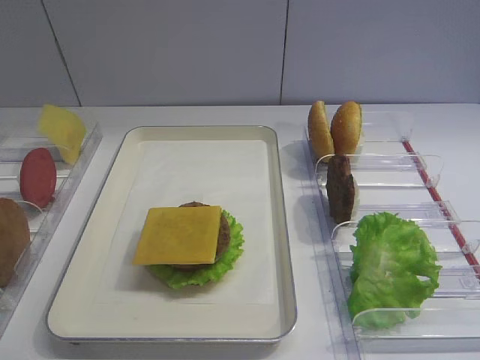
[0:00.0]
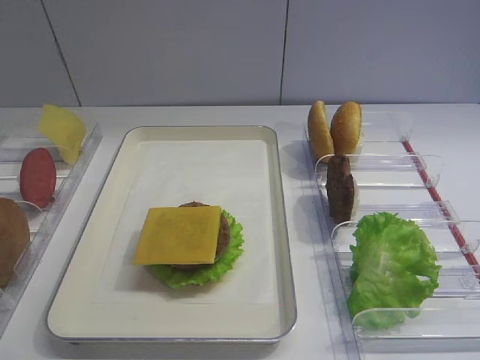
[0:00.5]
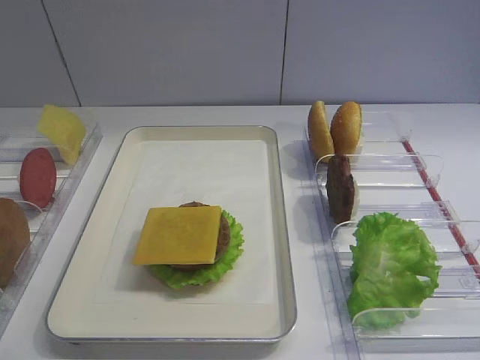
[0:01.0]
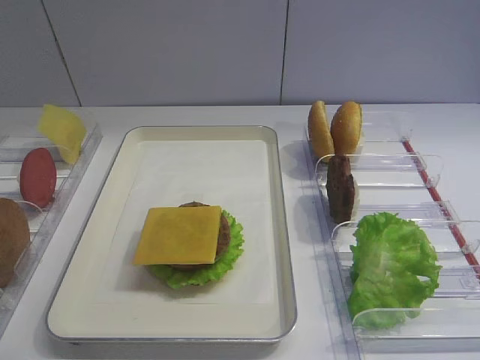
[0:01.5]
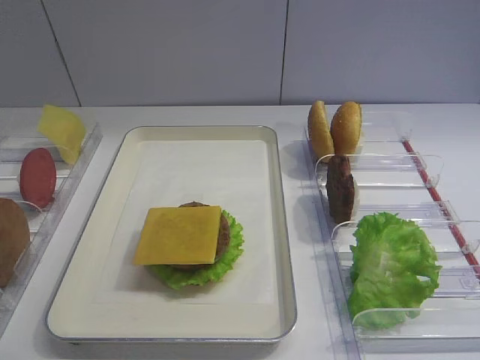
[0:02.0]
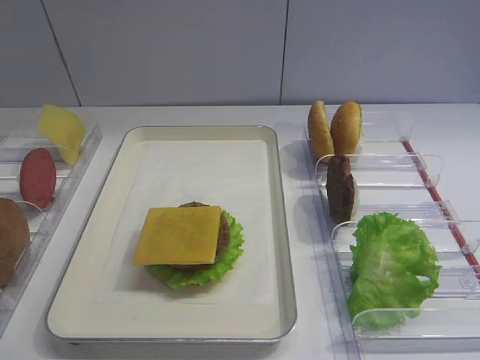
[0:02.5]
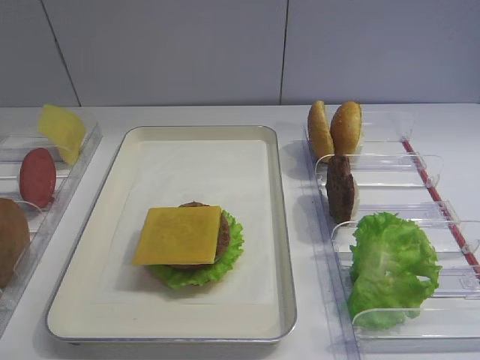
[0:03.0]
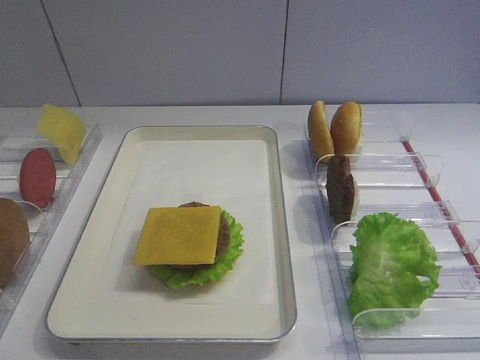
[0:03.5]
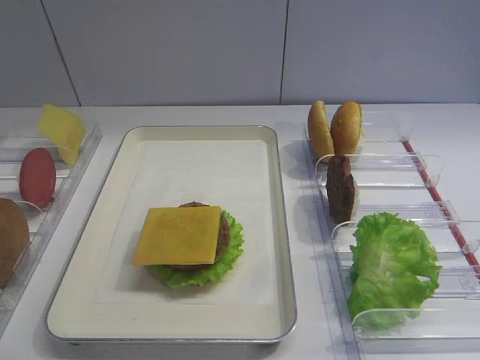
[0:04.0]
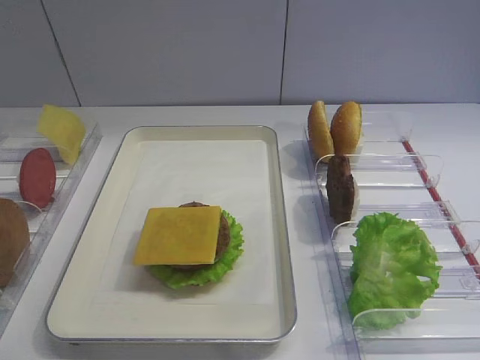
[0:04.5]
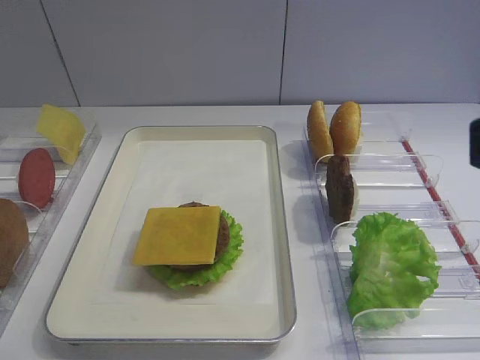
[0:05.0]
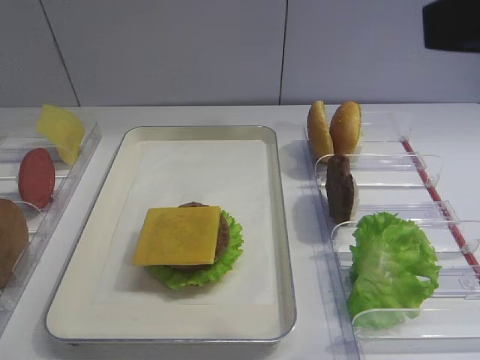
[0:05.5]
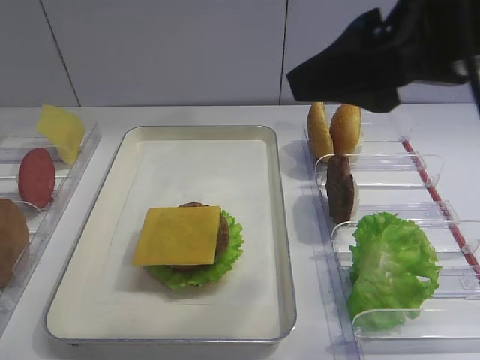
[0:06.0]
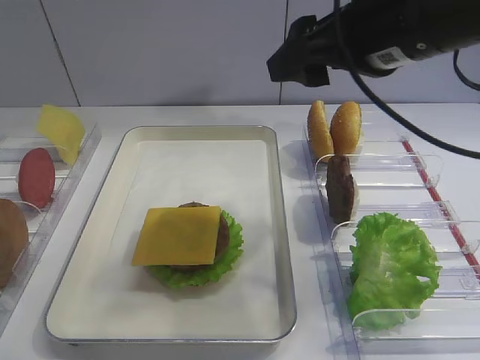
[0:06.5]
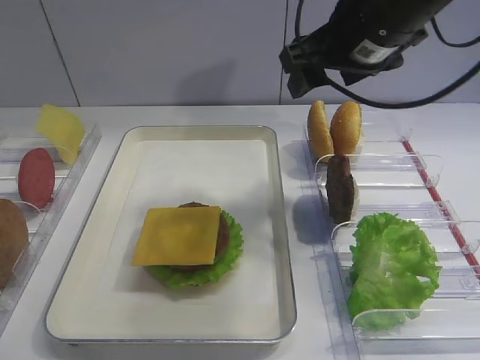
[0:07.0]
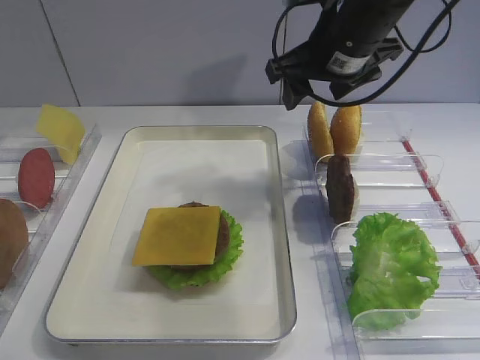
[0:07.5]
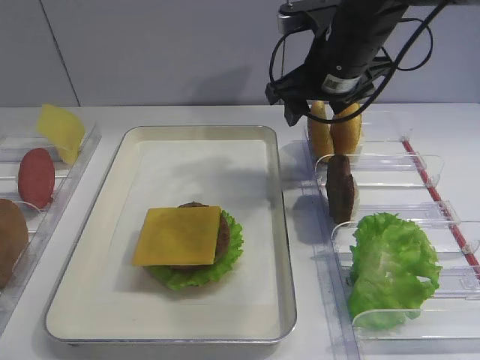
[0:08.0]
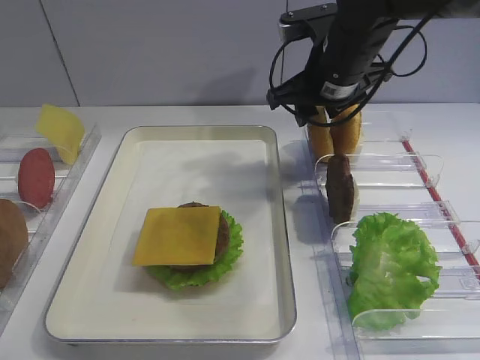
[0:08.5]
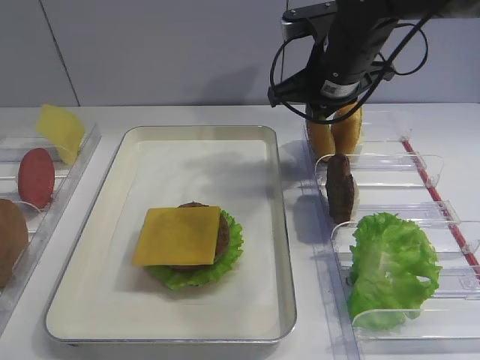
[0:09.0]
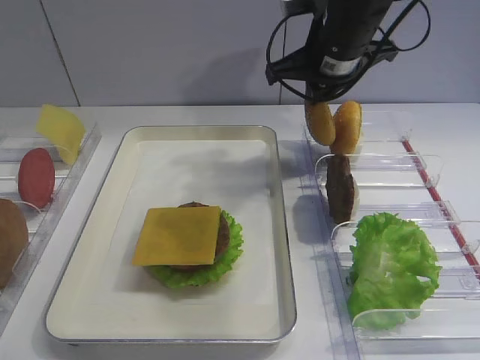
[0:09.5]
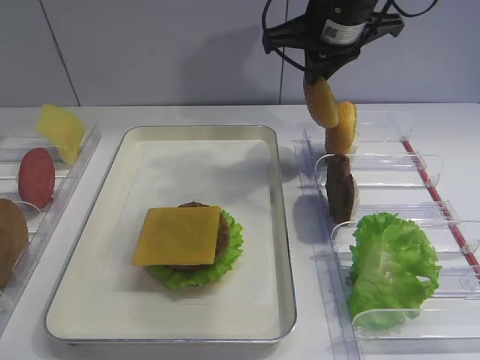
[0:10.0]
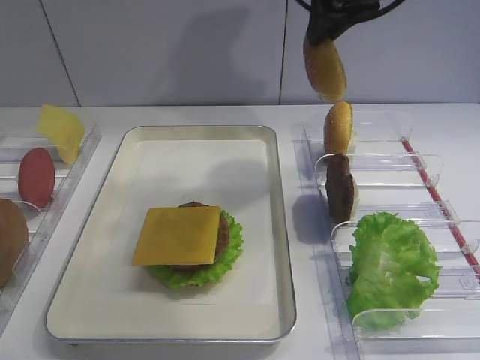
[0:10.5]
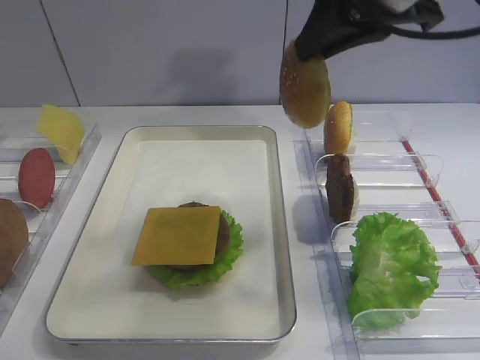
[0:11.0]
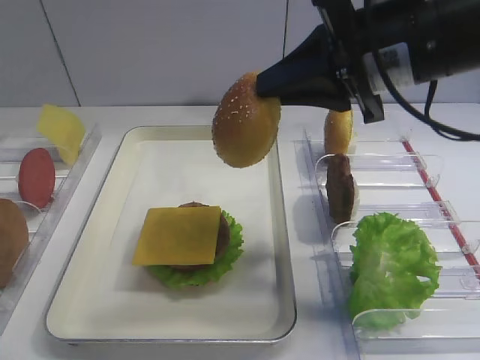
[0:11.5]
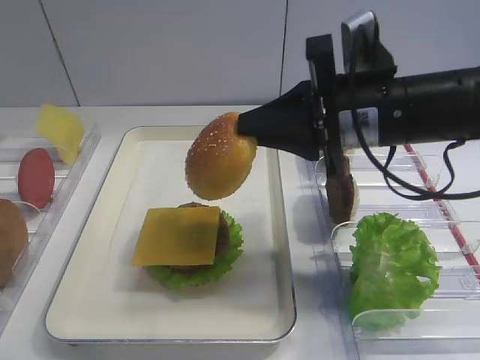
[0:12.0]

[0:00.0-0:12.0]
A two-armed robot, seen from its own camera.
Step, 0:00.0 to 0:10.0: Pick up the hamburger lid with the right gripper.
0:04.0 to 0:06.0: The right gripper is displaced forward and to the left by some 20 cm.
0:06.0 to 0:08.0: The right gripper moves forward and downward, roughly 20 cm.
0:08.0 to 0:10.0: The right gripper is displaced upward by about 5 cm, and closes.
0:10.0 to 0:12.0: The right gripper travels backward and downward by about 15 cm.

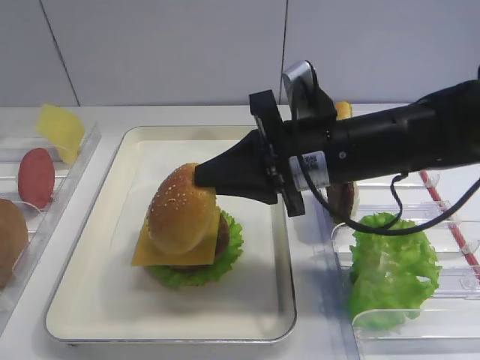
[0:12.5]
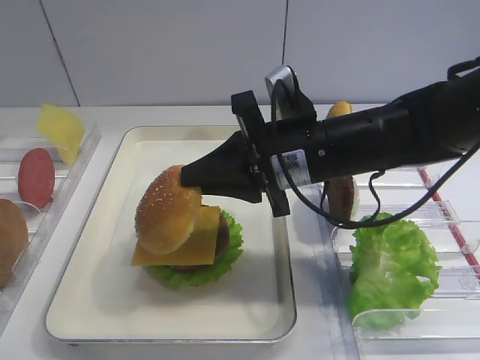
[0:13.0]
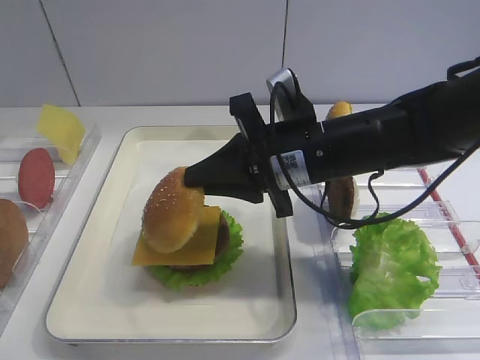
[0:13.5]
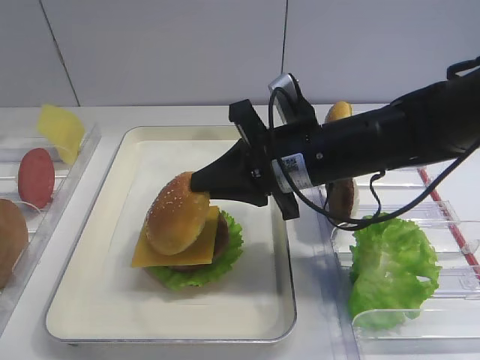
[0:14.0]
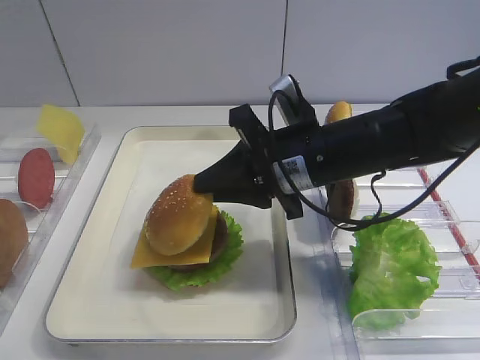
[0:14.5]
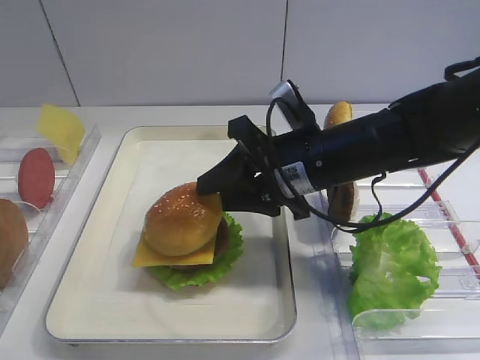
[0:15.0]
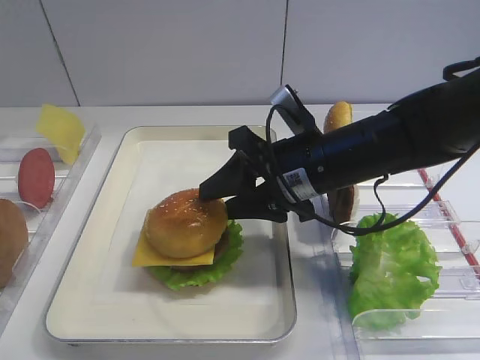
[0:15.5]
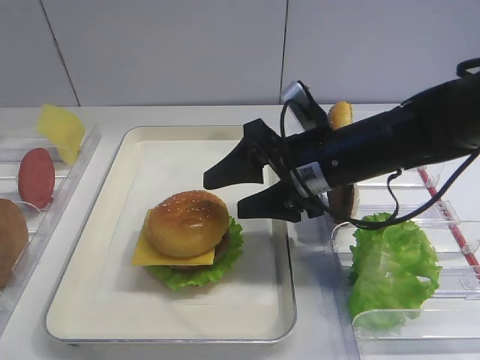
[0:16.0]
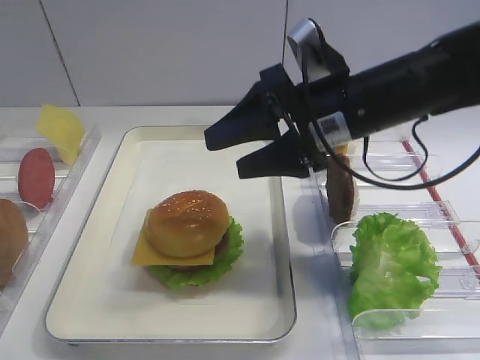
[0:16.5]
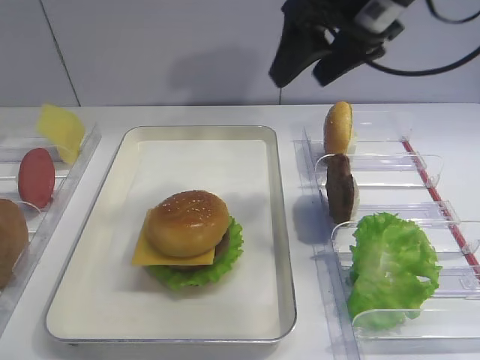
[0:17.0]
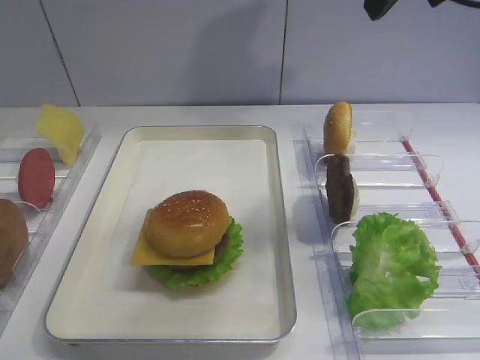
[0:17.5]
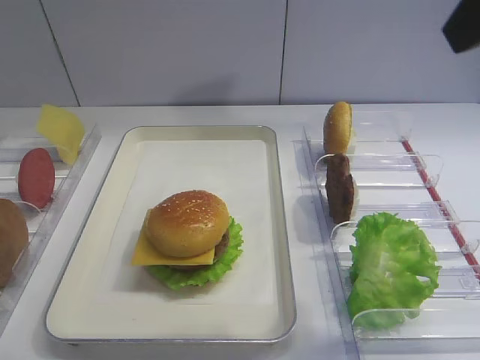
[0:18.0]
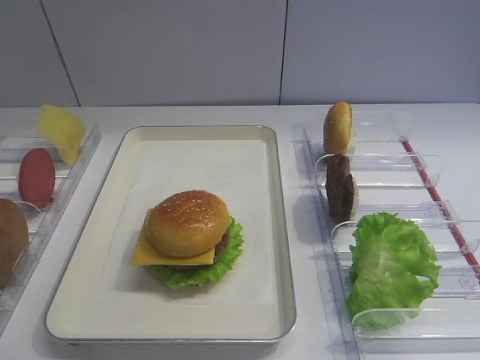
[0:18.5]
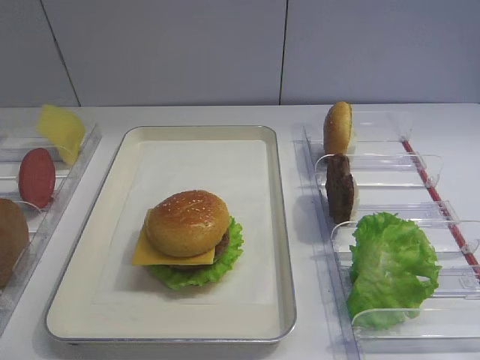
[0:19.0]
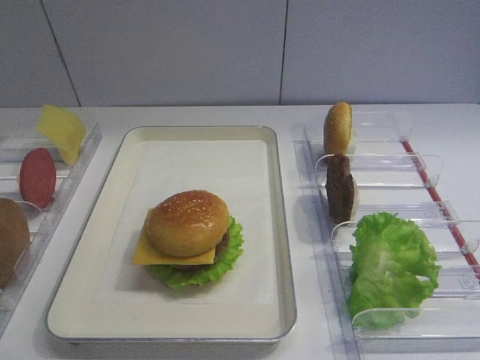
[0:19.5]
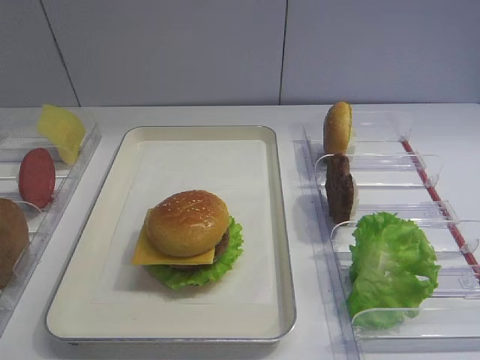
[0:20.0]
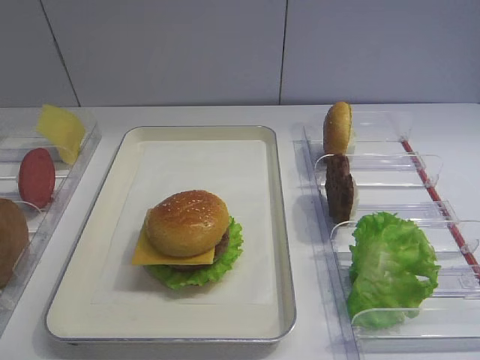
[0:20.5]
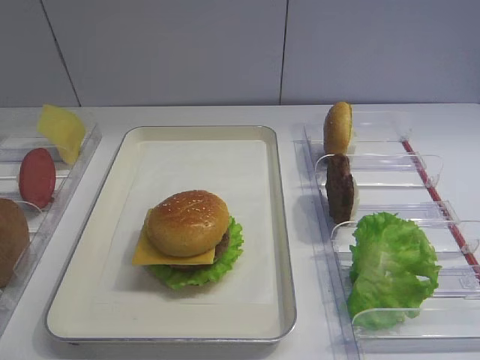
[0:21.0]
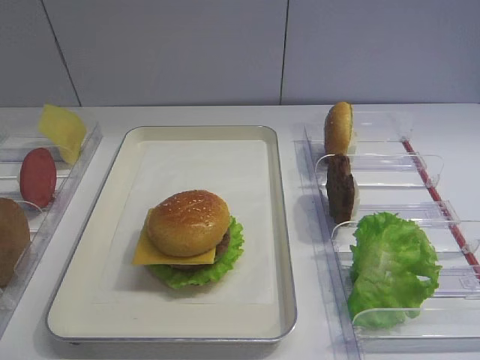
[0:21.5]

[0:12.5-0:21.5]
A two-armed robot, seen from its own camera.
Step, 0:12.5 to 0:16.0: Place the hamburger lid on the cheese slice with the right gripper.
0:12.5 to 0:14.5: The grippers move only a little.
0:14.5 to 0:17.0: The right gripper shifts roughly 15 cm upward, and opens.
0:17.0 to 0:19.5: The right gripper travels backward by approximately 35 cm.

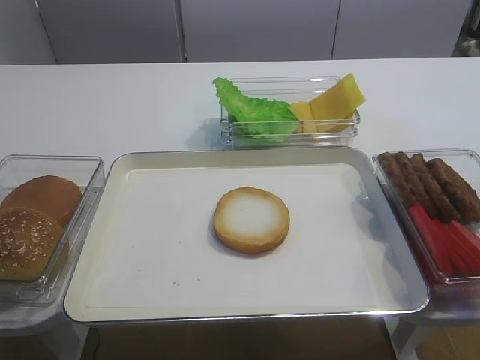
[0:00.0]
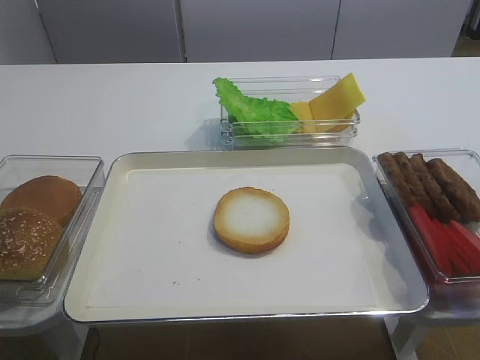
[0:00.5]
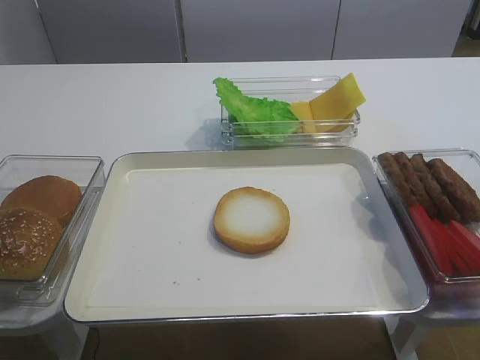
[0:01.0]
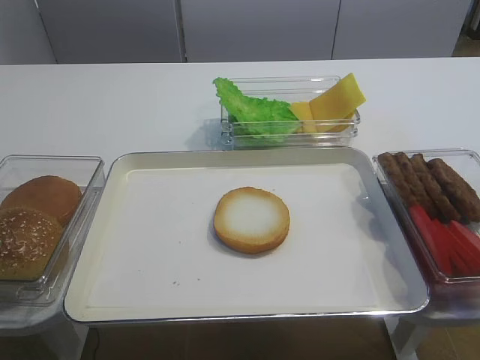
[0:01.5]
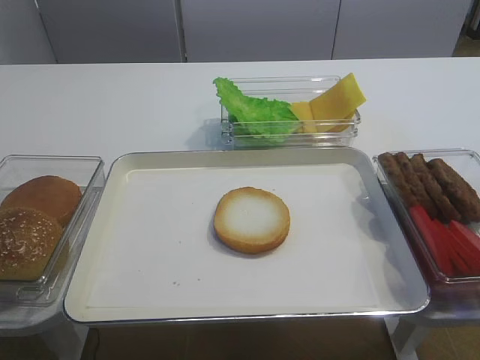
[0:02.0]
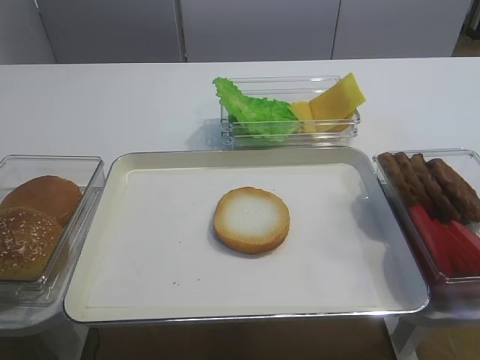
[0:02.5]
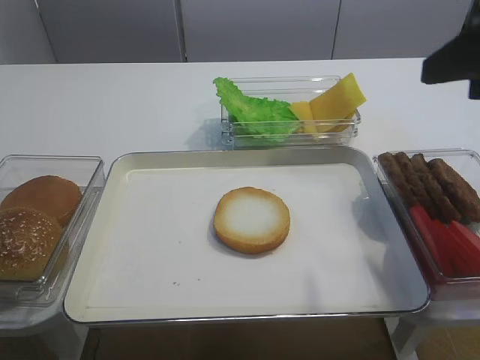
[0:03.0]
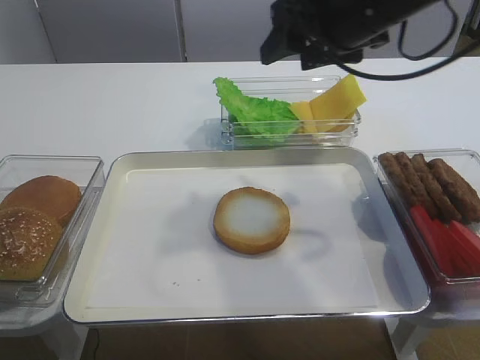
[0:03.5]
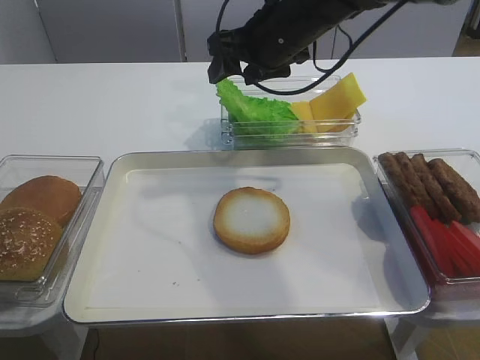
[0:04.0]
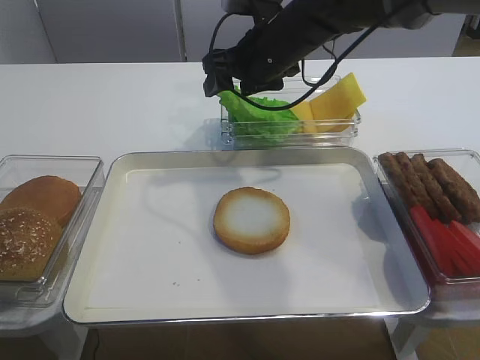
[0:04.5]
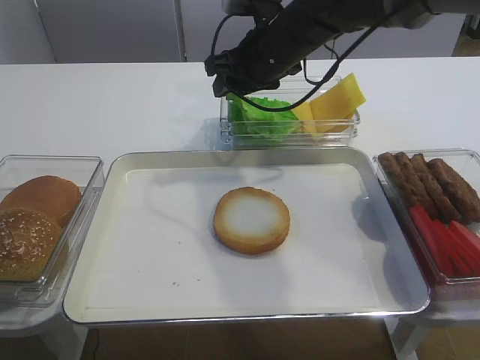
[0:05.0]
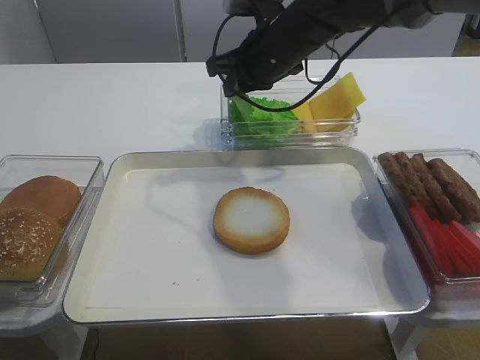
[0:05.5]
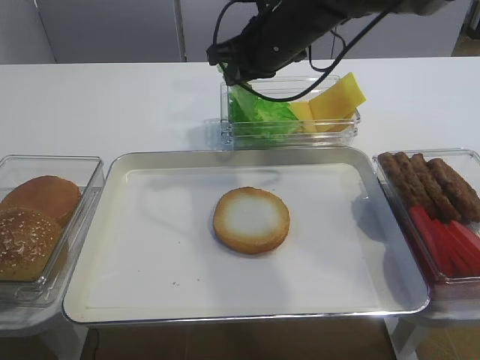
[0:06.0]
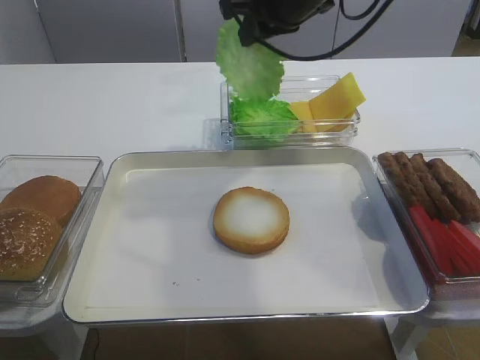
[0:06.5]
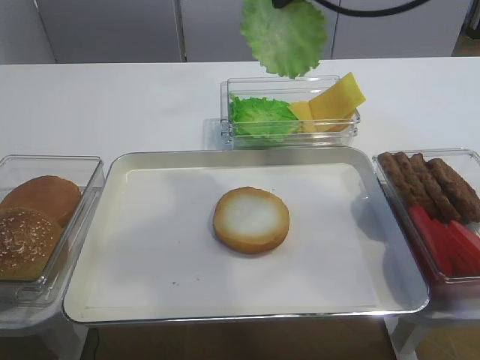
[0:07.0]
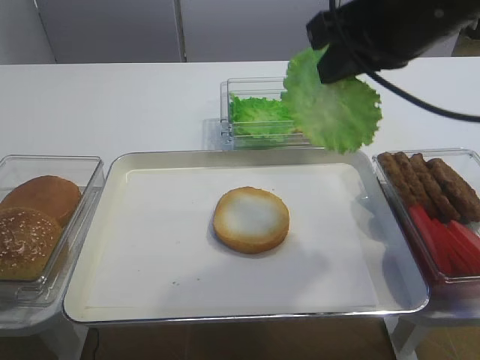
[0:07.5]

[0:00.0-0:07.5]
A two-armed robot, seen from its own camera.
Step, 0:00.0 to 0:06.0: Pick up the lettuce leaf with the right gripper.
0:02.0 to 0:04.0: The right gripper is displaced forward and to the left by some 50 cm.
0:04.0 to 0:05.5: The right gripper closes up.
0:05.5 to 0:07.5: The right gripper shifts roughly 20 cm backward, upward and to the right.
